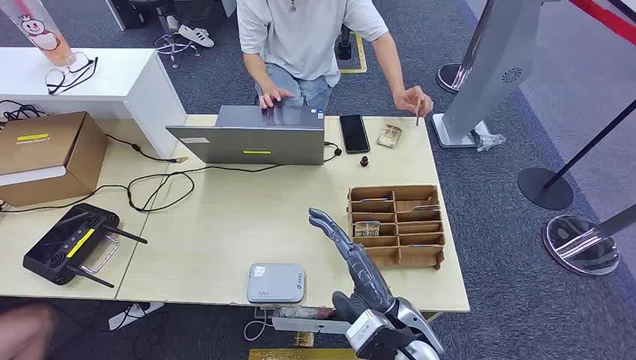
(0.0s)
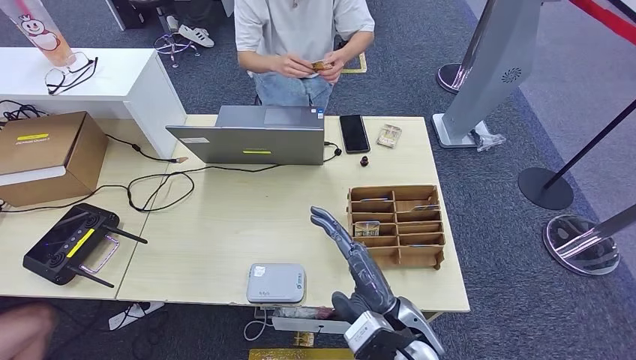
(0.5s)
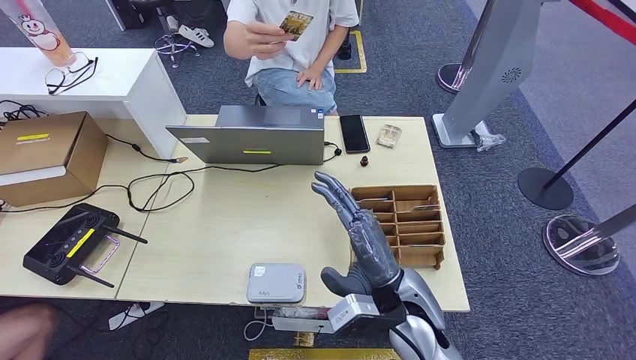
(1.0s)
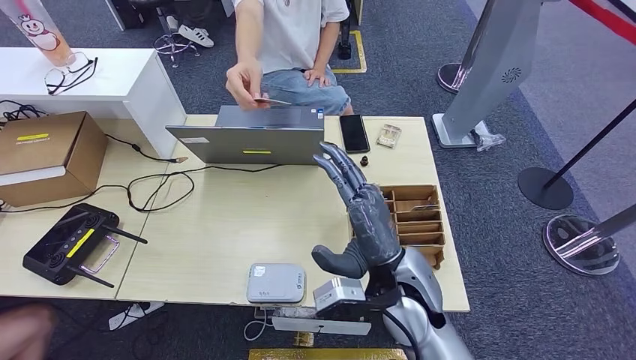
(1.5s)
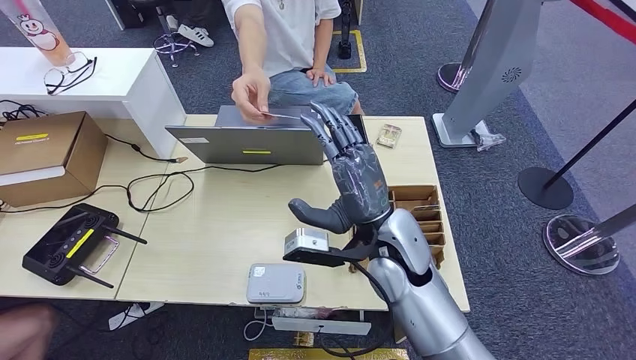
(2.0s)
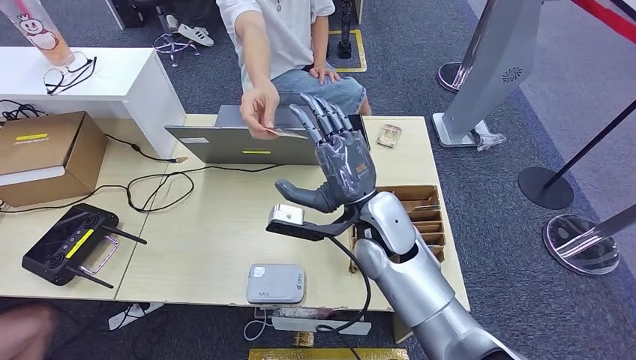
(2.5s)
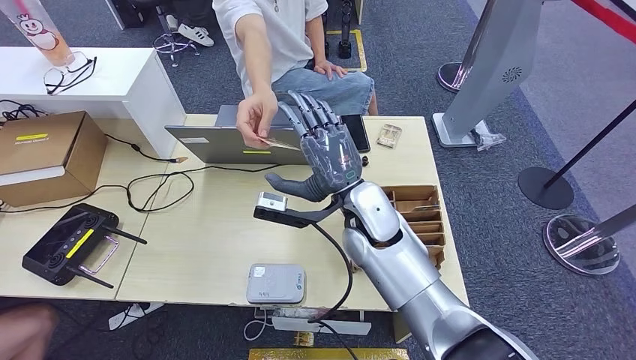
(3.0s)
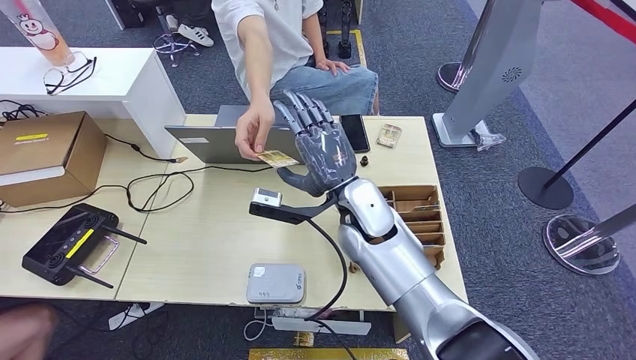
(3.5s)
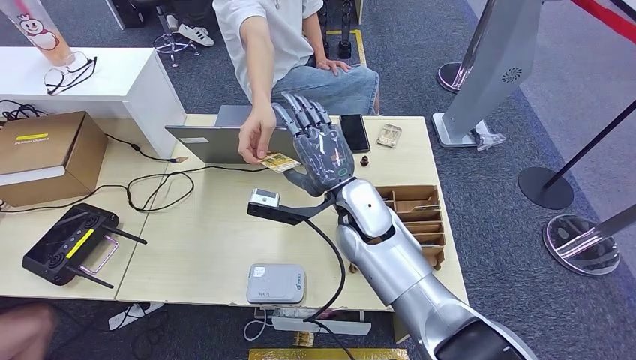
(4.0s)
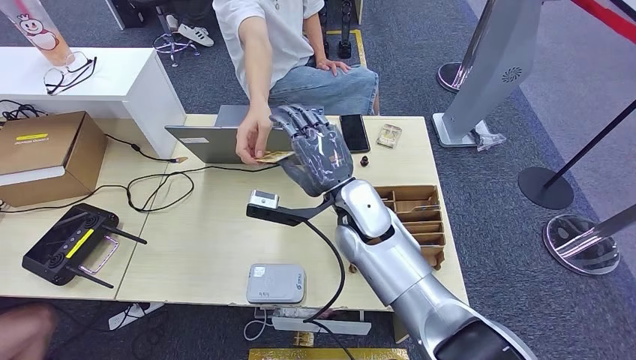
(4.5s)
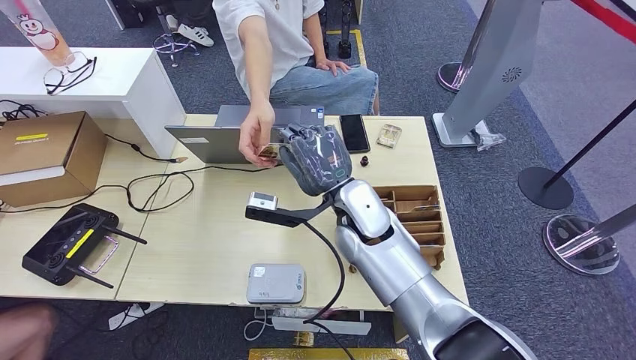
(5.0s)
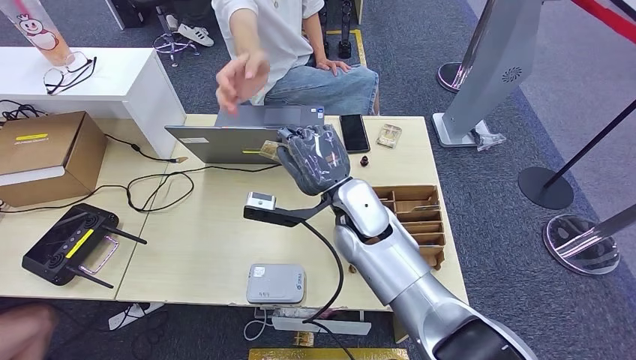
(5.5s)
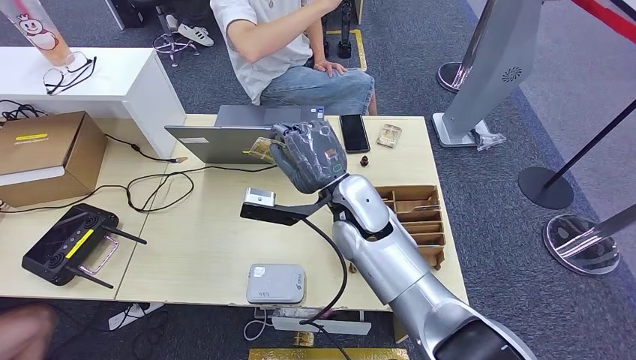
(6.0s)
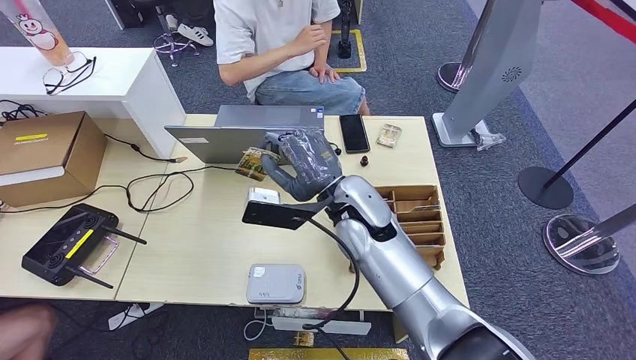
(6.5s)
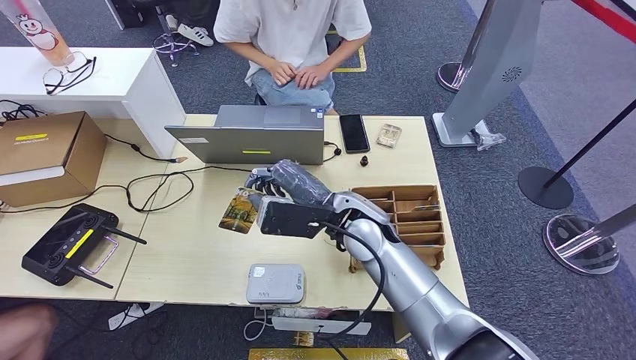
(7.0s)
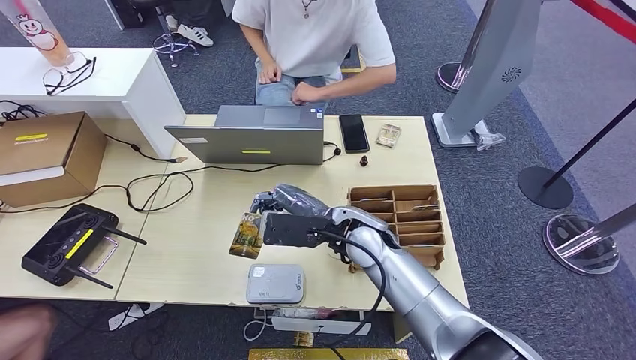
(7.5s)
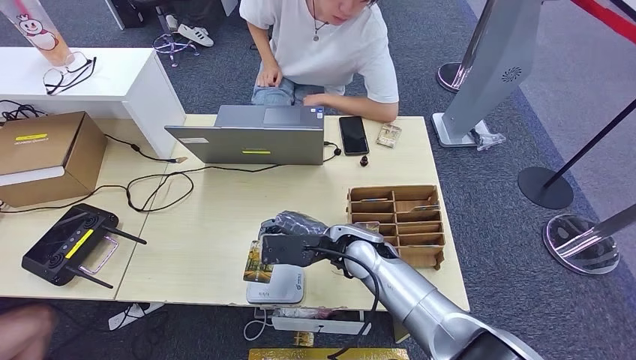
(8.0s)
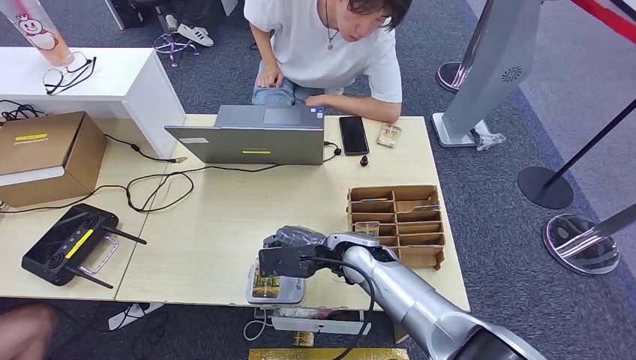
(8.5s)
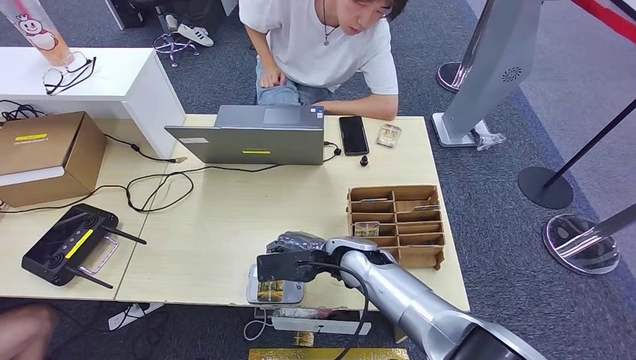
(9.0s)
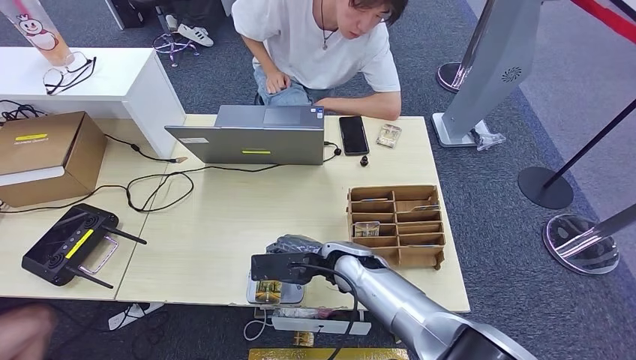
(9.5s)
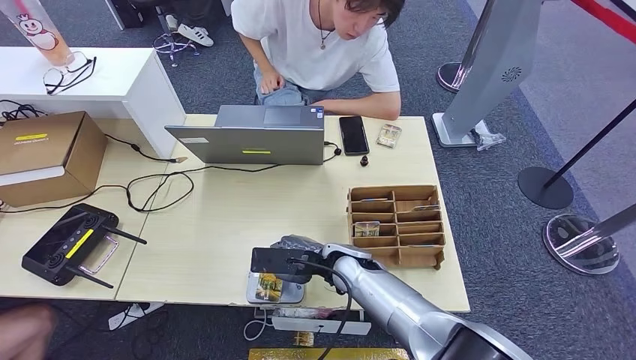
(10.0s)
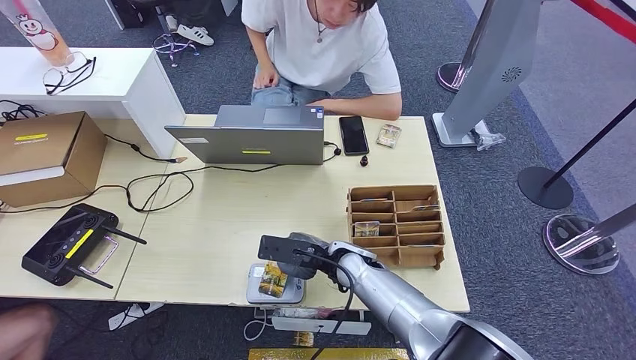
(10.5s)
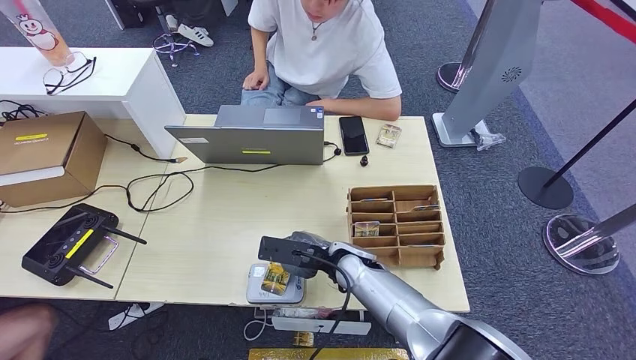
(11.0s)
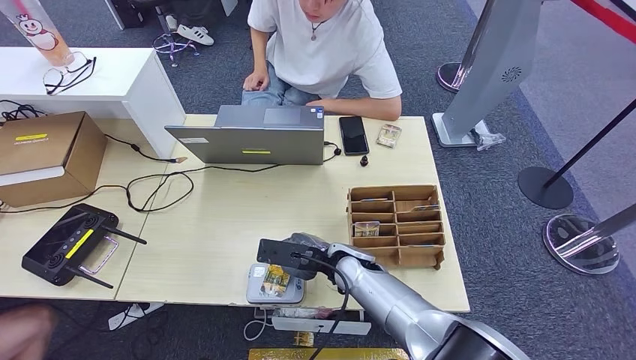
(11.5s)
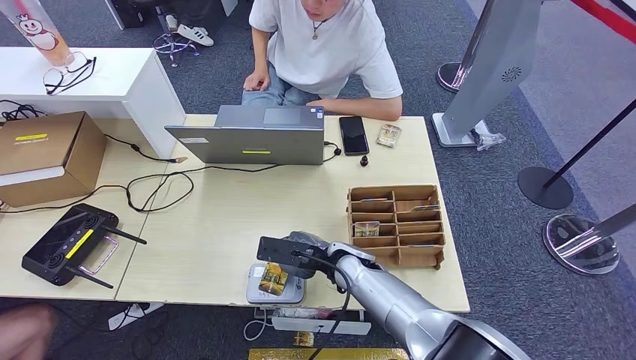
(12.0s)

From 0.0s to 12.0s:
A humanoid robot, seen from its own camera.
Step, from 0.0s to 5.5s: Take the ID card from the person's hand.
Step, from 6.0s to 10.0s: Place the ID card on the card reader.
From 2.0s to 4.0s: The right hand is displaced forward by roughly 5 cm.
From 4.0s to 6.0s: The hands stay close to where they were, moving slightly.
From 6.0s to 8.0s: The right hand goes approximately 10 cm downward.
From 8.0s to 10.0s: The right hand changes place by roughly 5 cm.
From 10.0s to 12.0s: There are only small adjustments of the hands.

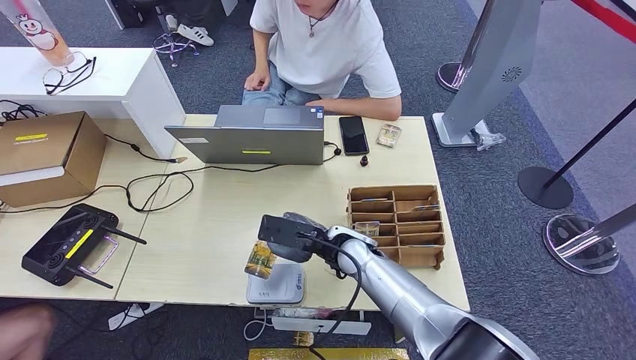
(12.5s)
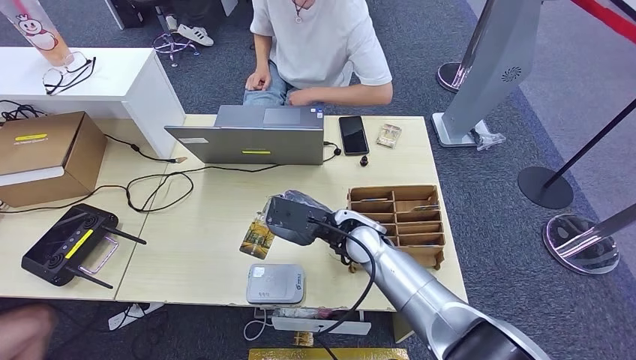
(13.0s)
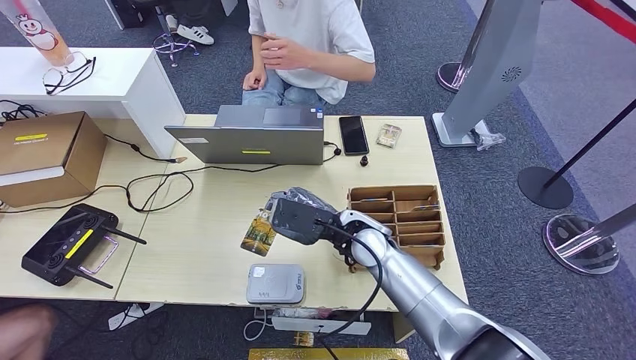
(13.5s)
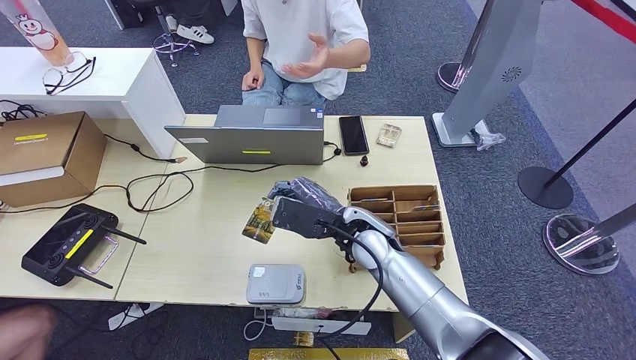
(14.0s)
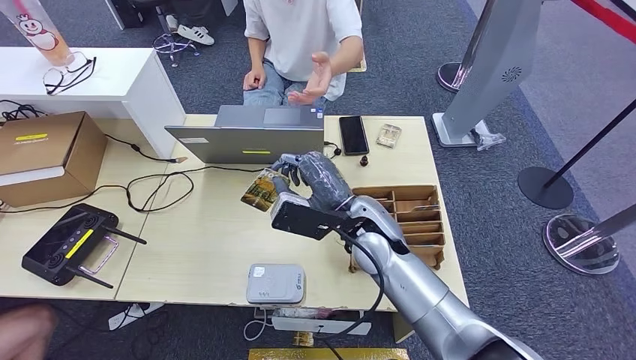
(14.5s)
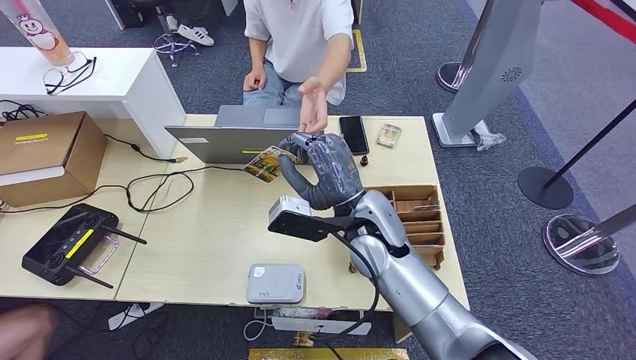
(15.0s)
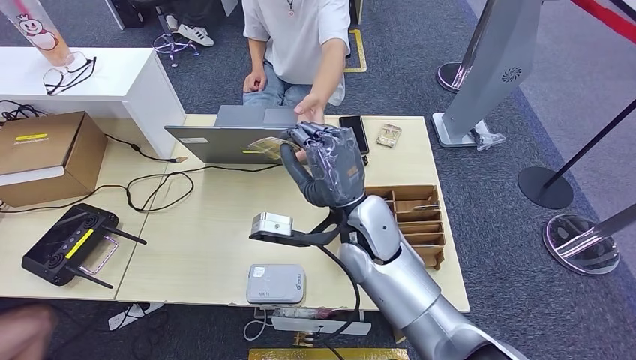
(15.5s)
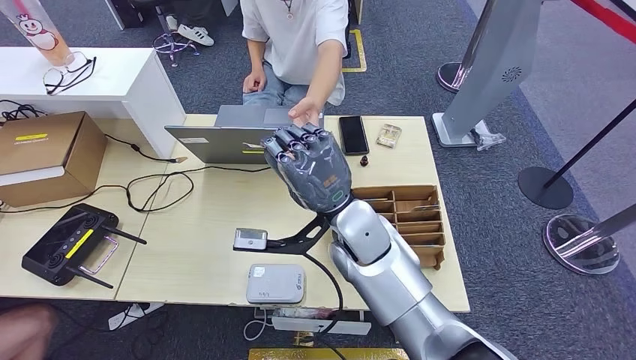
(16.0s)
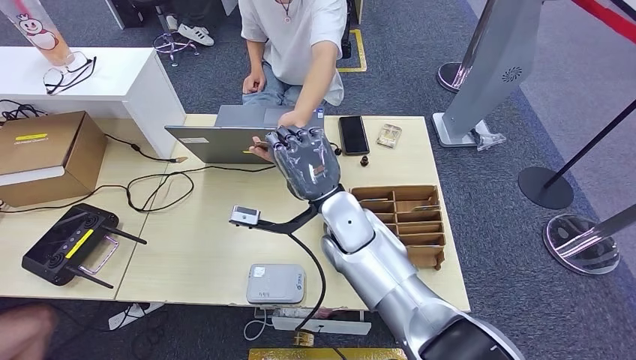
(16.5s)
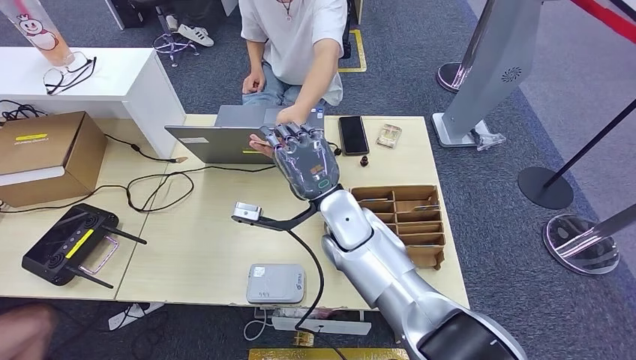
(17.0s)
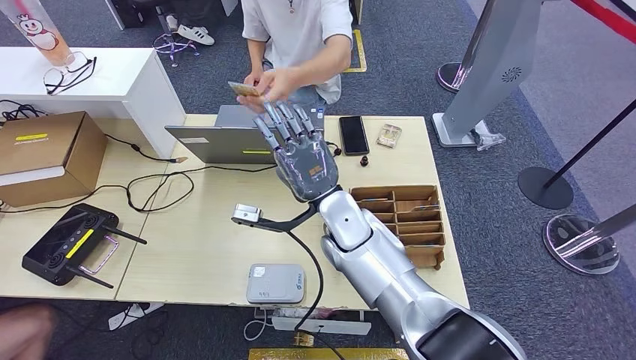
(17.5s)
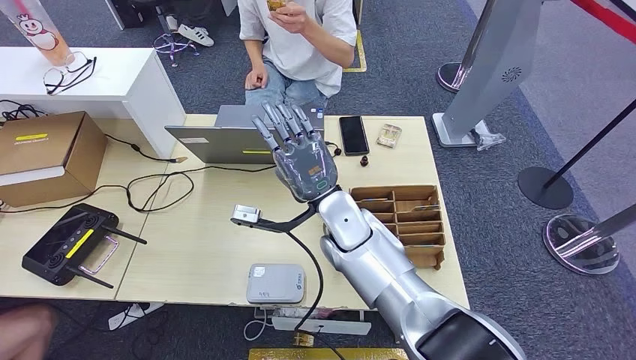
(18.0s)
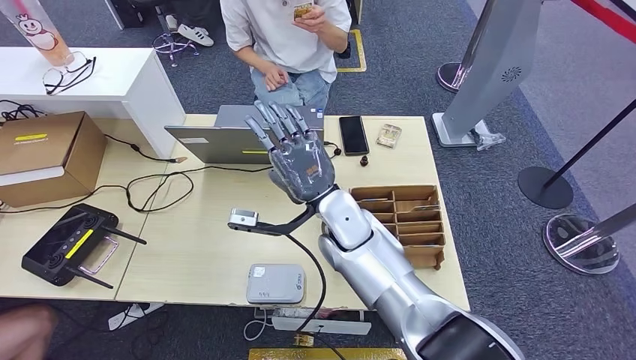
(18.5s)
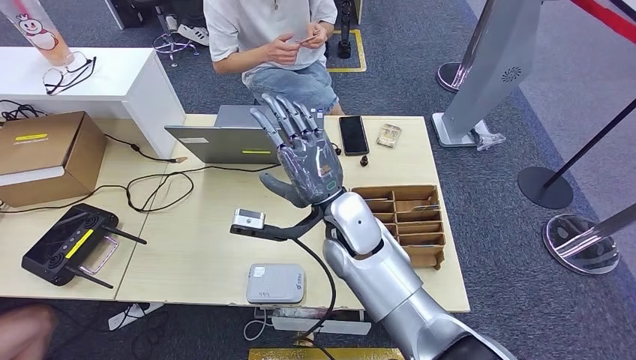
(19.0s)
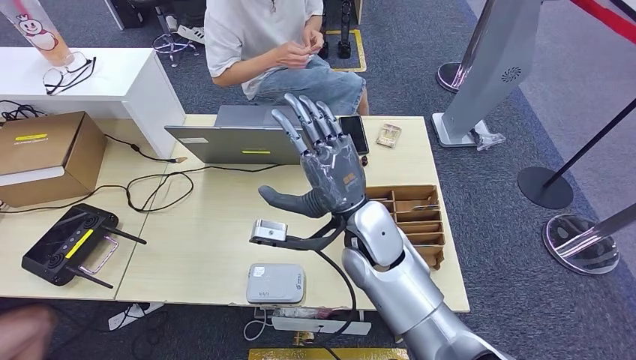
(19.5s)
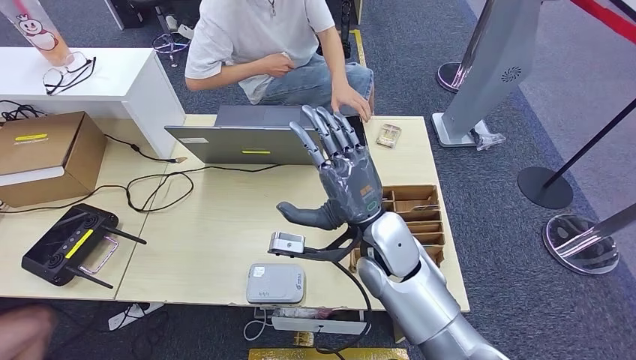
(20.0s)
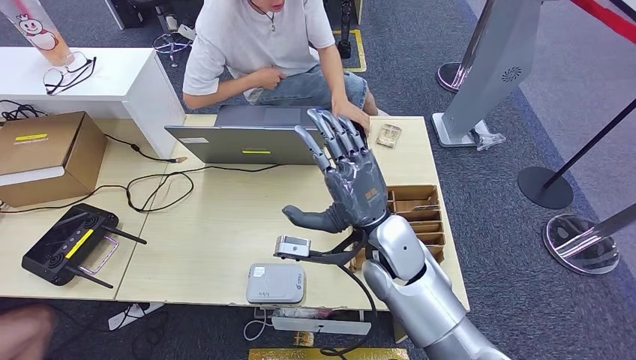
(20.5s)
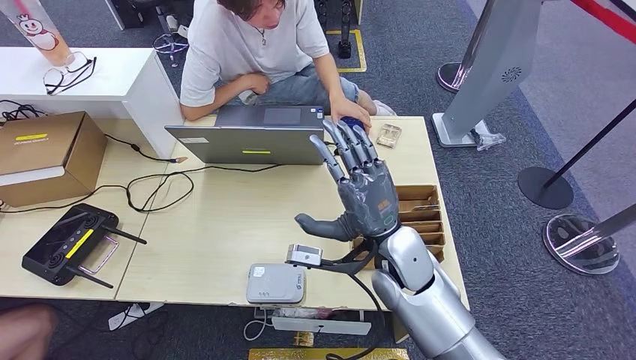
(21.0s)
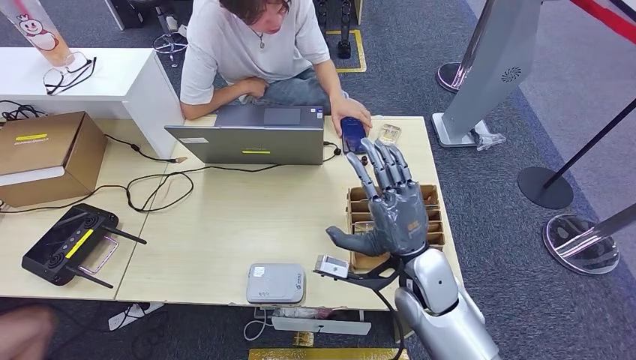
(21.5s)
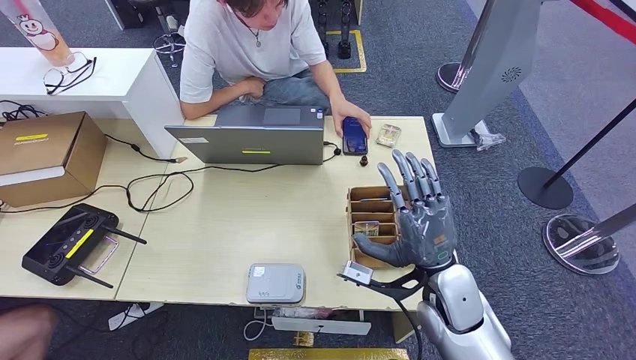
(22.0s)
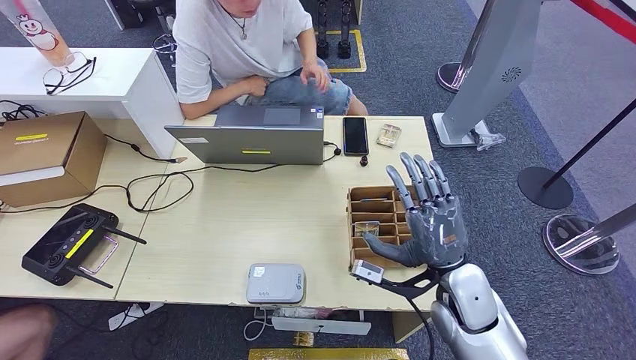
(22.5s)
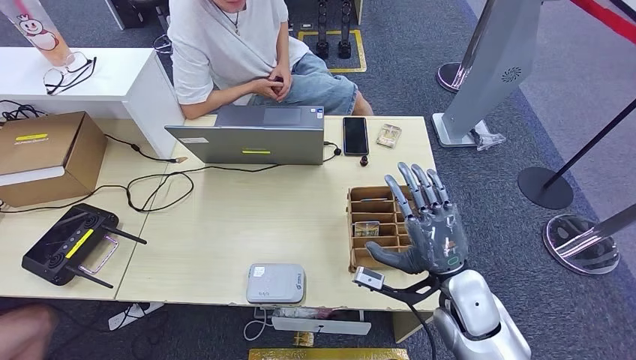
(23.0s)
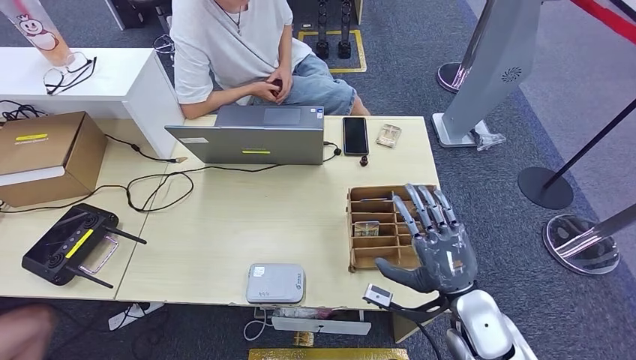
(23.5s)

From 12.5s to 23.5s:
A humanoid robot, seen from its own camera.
Step, from 12.5s to 17.0s: Hand the ID card to the person.
From 12.5s to 14.5s: The right hand travels upward by about 10 cm.
From 16.0s to 18.0s: The hands make only small movements.
From 18.0s to 20.0s: The right hand is displaced to the right by approximately 5 cm.
From 20.0s to 21.5s: The right hand heads to the right, covering roughly 5 cm.
From 21.5s to 23.5s: The right hand shifts about 10 cm to the right and backward.
